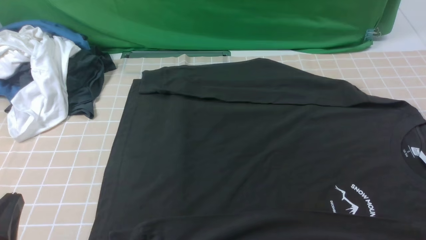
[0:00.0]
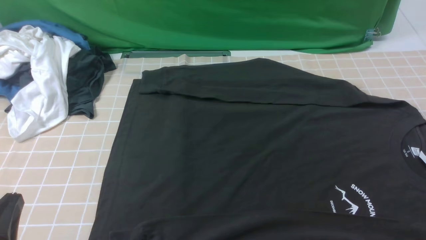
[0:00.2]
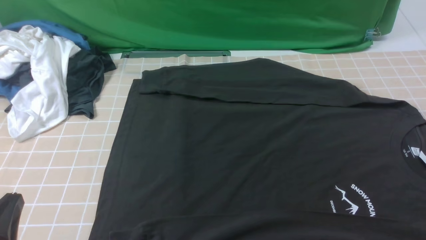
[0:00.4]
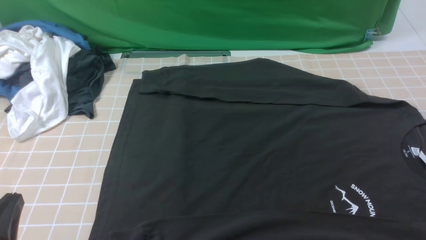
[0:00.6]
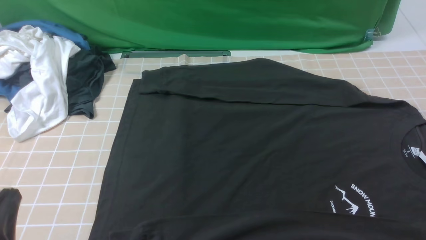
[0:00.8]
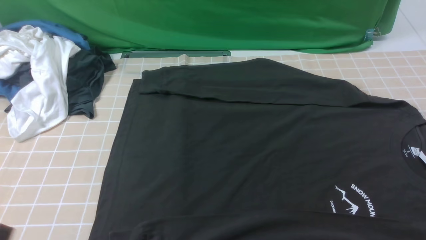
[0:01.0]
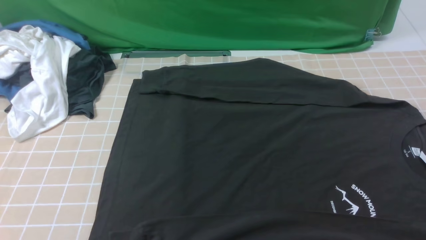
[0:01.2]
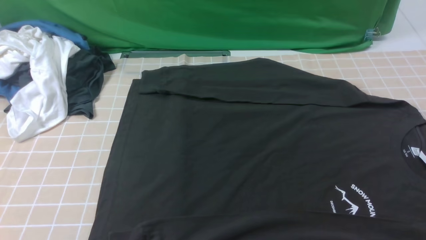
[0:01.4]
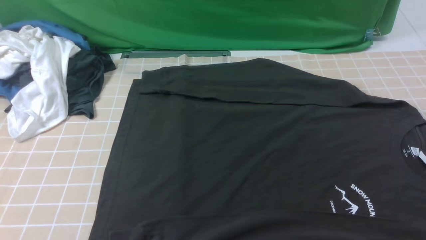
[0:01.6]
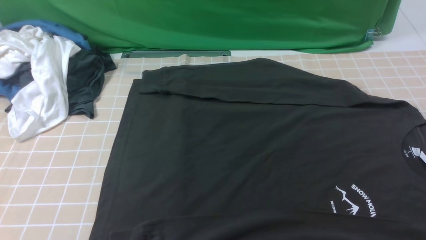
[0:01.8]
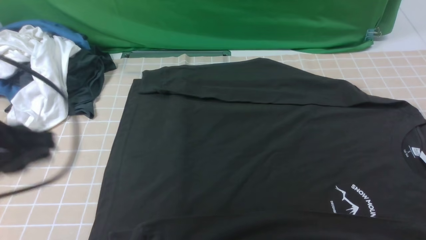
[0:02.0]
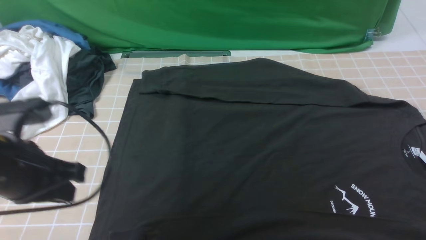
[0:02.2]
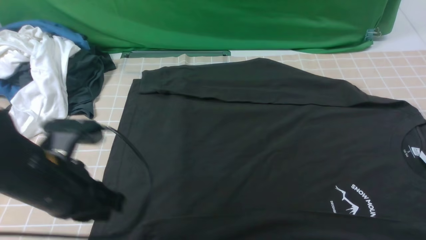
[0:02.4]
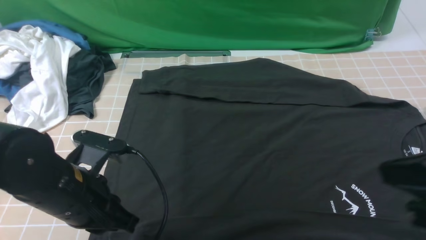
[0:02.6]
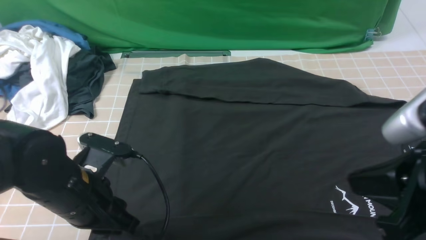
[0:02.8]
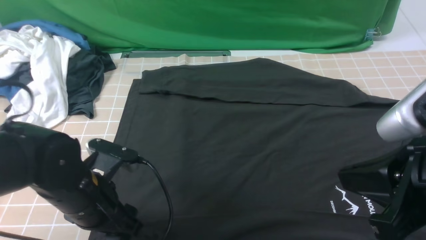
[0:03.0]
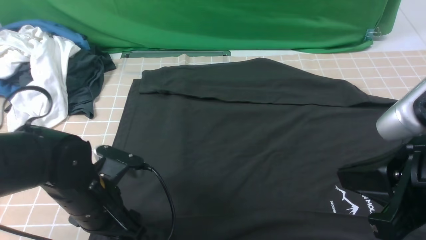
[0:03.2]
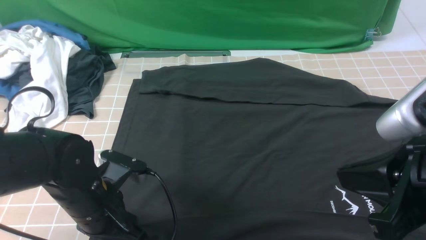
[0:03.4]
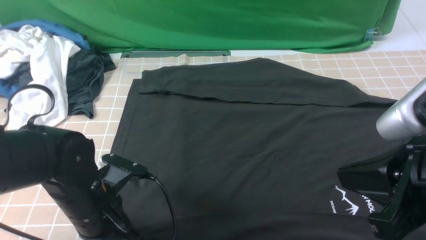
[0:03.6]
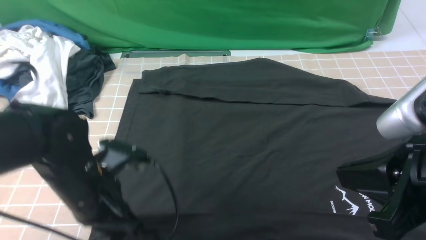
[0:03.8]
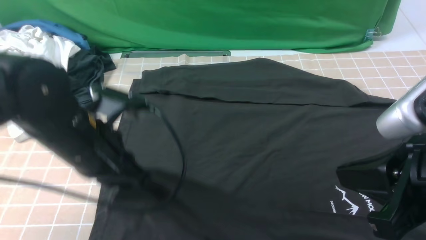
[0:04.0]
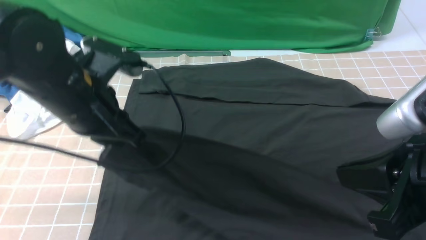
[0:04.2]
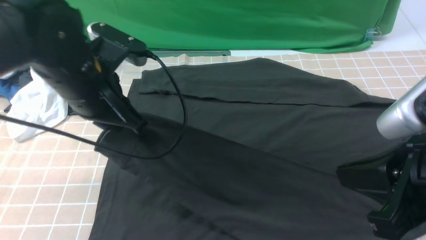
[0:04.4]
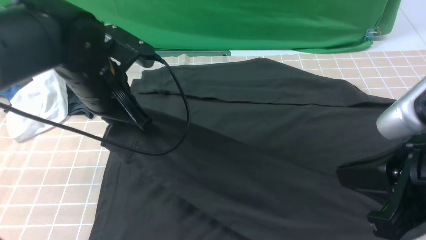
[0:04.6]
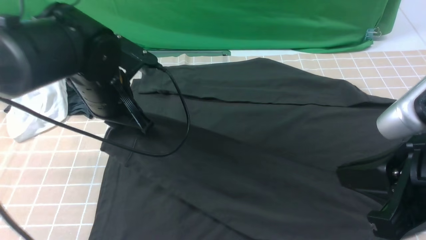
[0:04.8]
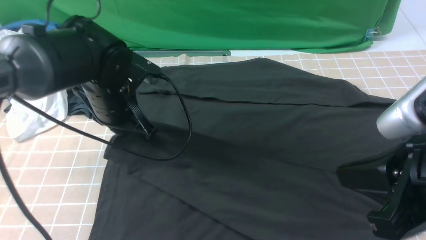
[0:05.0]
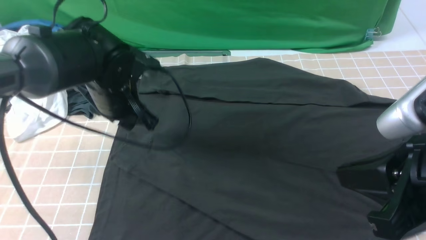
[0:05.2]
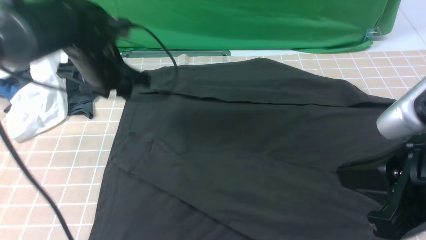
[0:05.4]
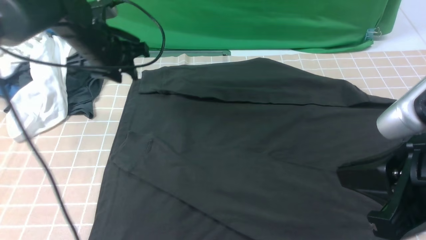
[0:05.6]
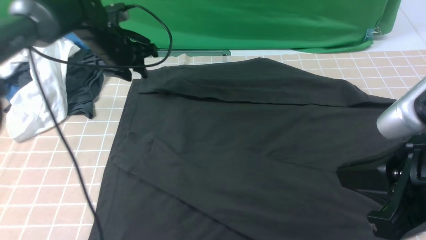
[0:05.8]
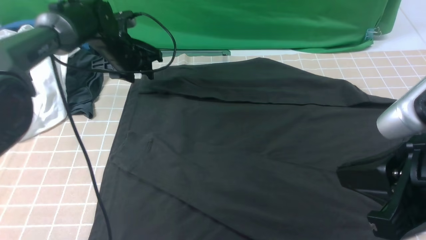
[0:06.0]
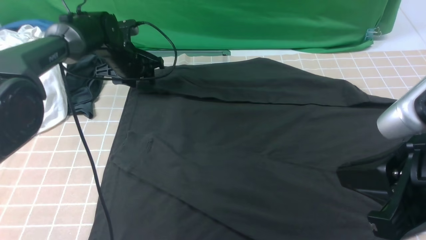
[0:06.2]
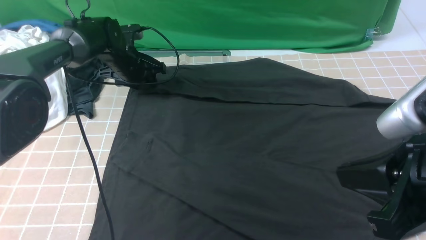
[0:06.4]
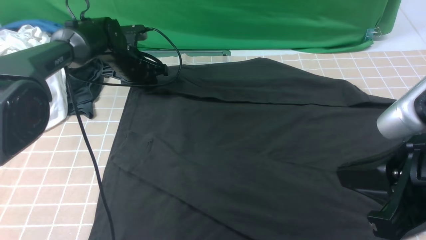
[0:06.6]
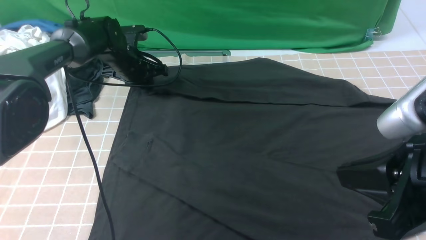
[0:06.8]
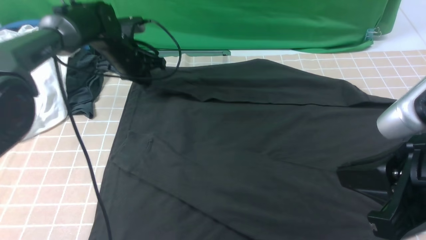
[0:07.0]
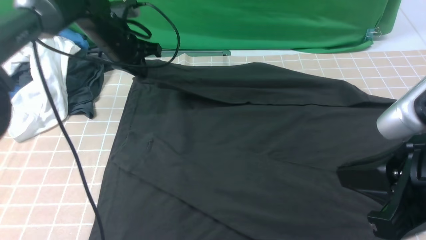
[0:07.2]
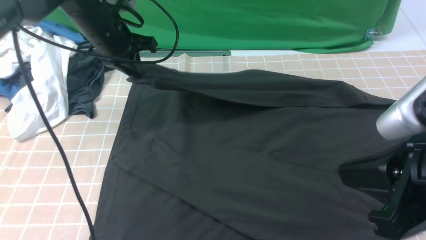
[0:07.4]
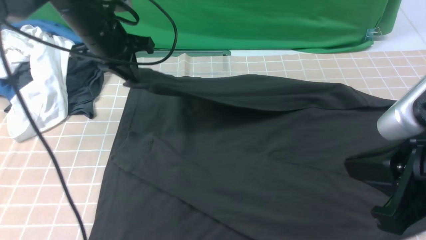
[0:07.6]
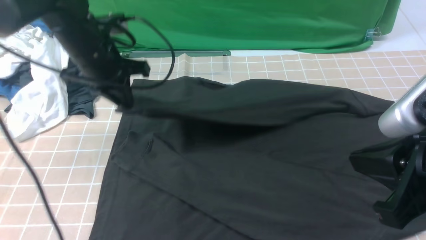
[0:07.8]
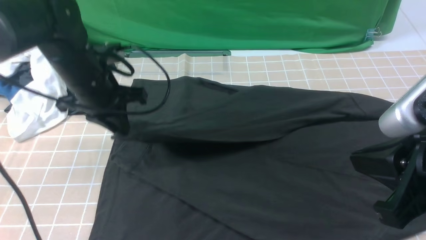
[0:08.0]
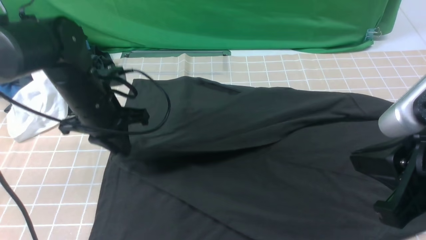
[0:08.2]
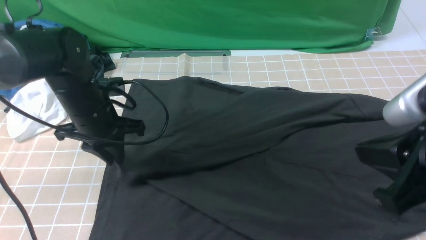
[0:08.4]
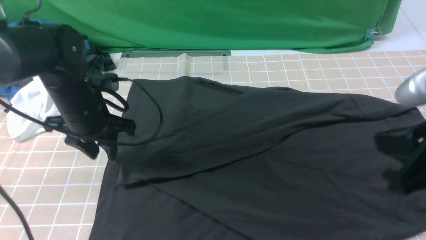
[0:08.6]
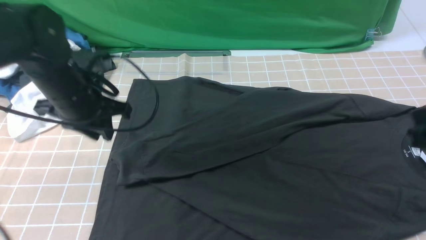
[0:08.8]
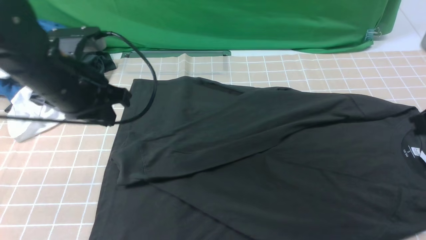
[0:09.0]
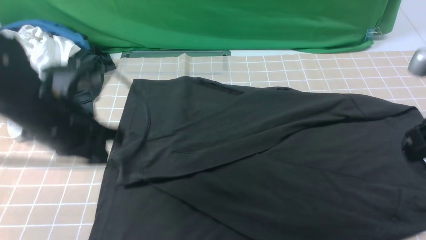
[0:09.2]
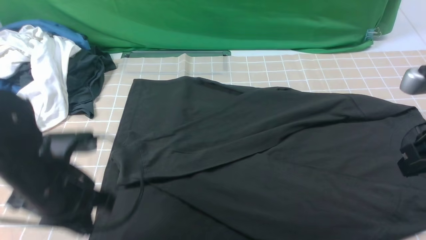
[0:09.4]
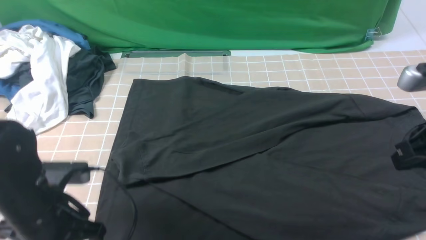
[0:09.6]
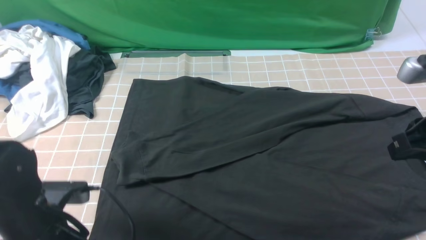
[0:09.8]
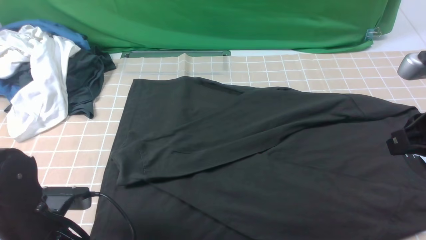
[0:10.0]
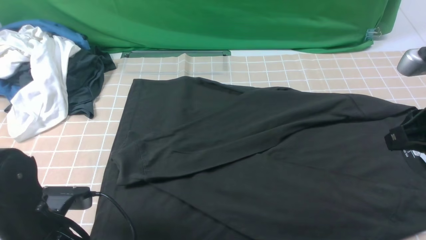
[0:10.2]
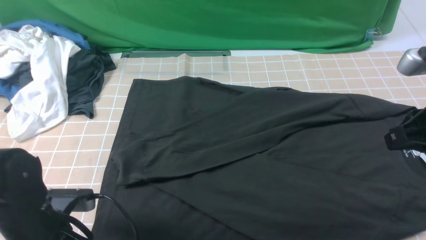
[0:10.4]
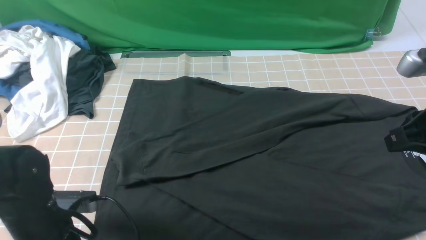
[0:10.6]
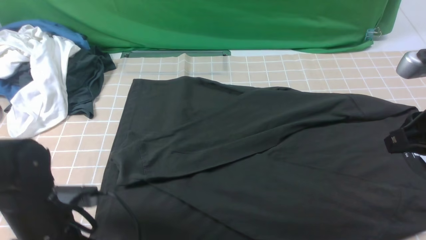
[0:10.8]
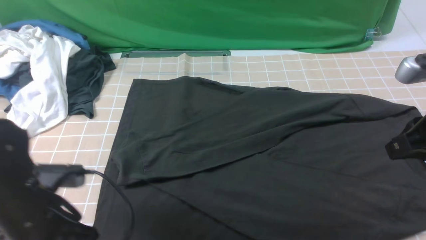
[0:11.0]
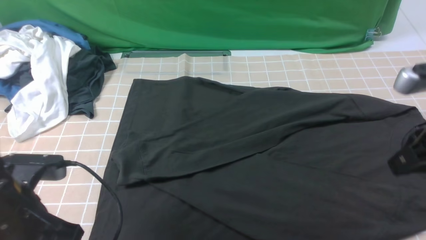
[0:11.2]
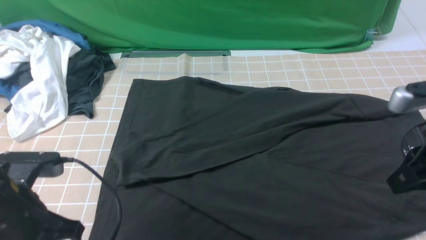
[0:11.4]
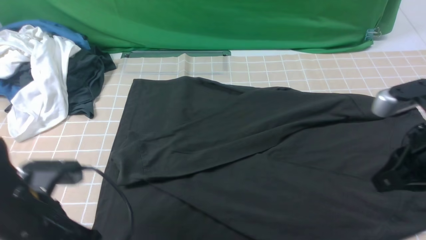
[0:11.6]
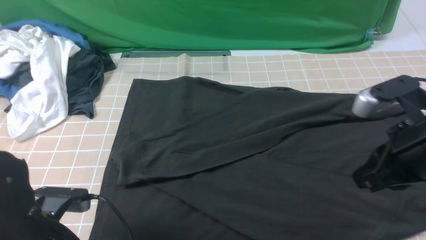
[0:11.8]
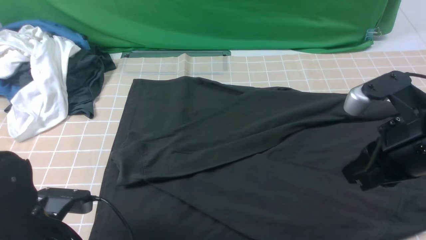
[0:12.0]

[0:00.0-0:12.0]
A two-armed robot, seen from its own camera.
Step, 0:00.0 to 0:03.8: use the left arm to clamp the cuff closest to it.
Step, 0:04.0 to 0:05.2: use the left arm to drag and place the cuff at the centered position on the left edge of the fabric.
Step, 0:05.4 to 0:07.0: use the left arm to clamp the cuff farthest from it.
Step, 0:07.2 to 0:08.8: use the left arm to drag and drop the cuff onto the cuff closest to the left arm.
0:00.0 to 0:01.6: The left gripper goes about 15 cm upward.
0:01.6 to 0:03.0: The left gripper moves downward, forward and to the right, some 20 cm, and opens; the right gripper is displaced to the left, upward and forward by roughly 15 cm, and closes.
0:03.0 to 0:04.4: The left gripper heads upward and forward, covering approximately 15 cm, and closes up.
0:04.4 to 0:06.0: The left gripper heads forward and downward, covering about 25 cm, and opens.
0:06.0 to 0:07.6: The left gripper heads upward and backward, covering about 10 cm, and closes.
0:07.6 to 0:09.0: The right gripper moves forward and to the right, about 10 cm. Meanwhile the left gripper travels backward by approximately 10 cm, and opens, then closes once more.
0:09.0 to 0:10.4: The left gripper heads backward and downward, covering approximately 15 cm, and opens and closes again.
0:10.4 to 0:12.0: The left gripper opens up; the right gripper heads to the left, covering roughly 5 cm.

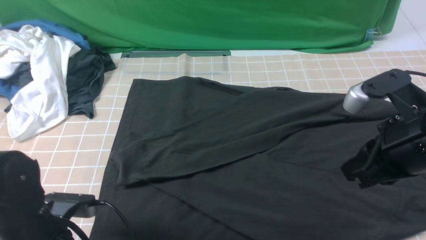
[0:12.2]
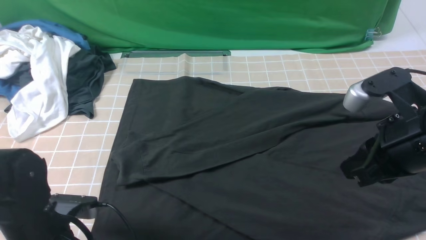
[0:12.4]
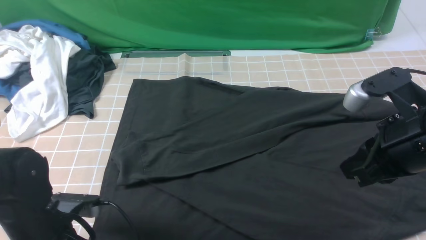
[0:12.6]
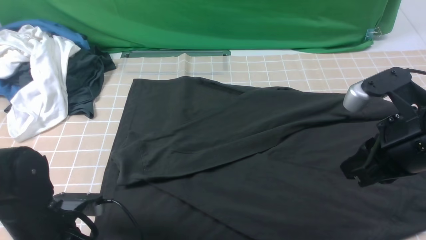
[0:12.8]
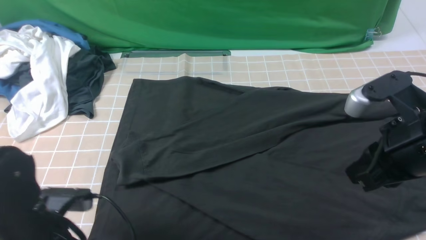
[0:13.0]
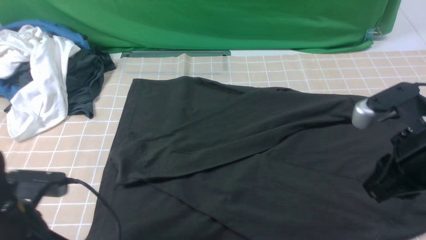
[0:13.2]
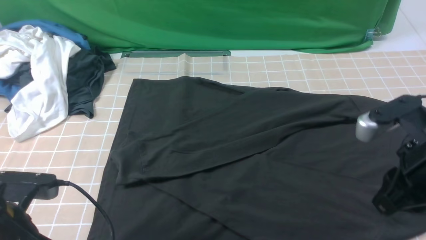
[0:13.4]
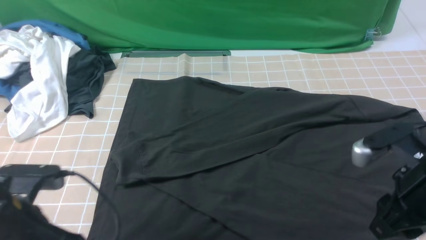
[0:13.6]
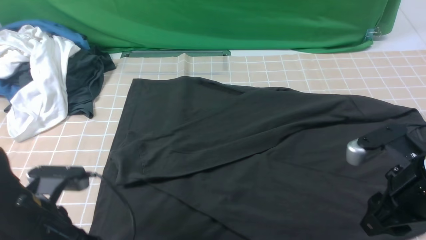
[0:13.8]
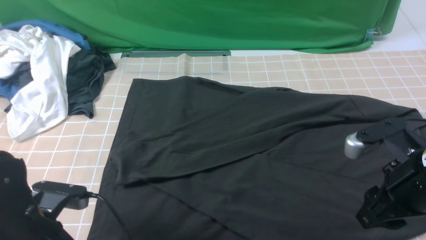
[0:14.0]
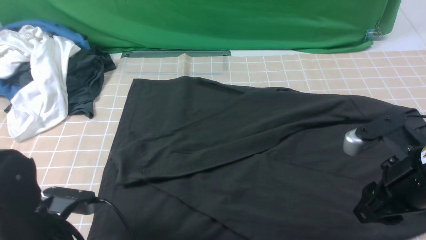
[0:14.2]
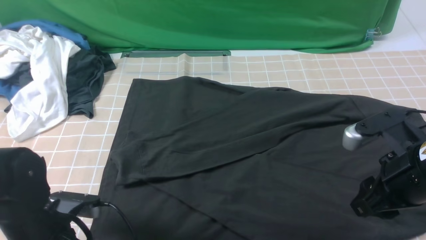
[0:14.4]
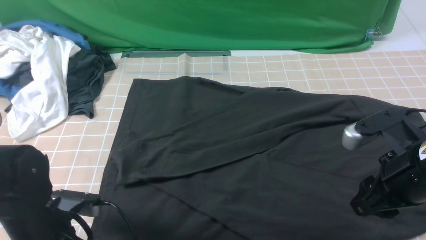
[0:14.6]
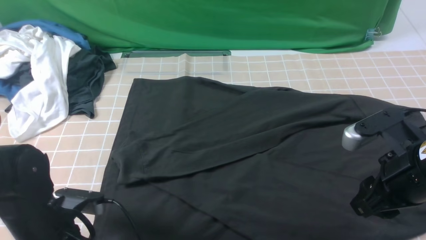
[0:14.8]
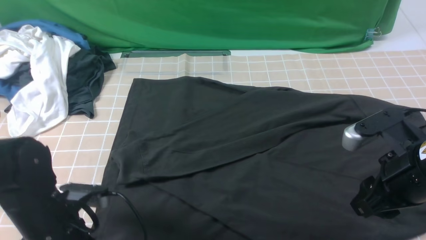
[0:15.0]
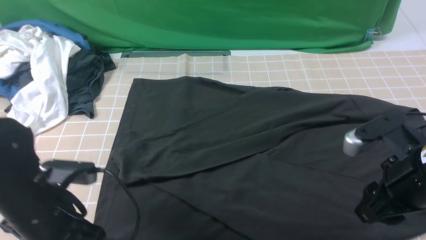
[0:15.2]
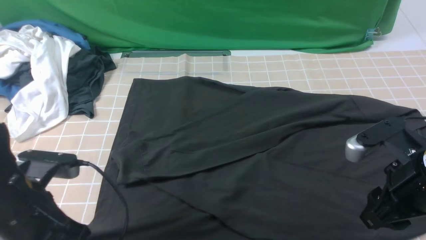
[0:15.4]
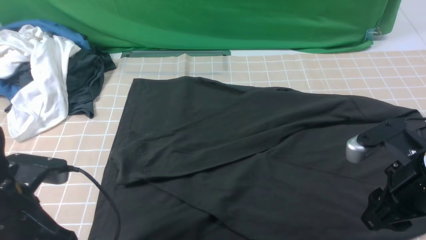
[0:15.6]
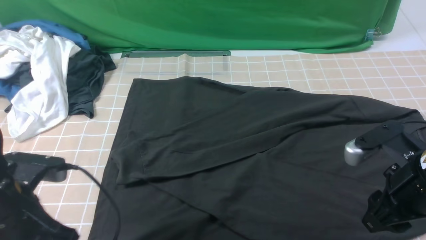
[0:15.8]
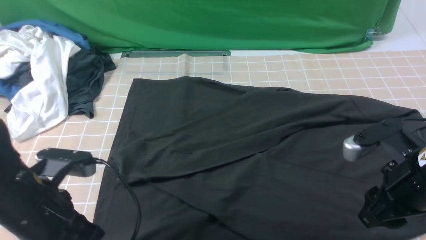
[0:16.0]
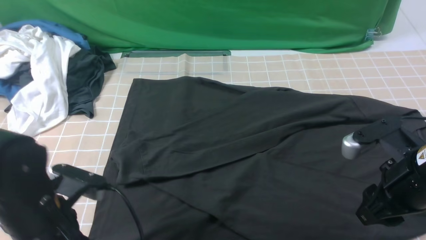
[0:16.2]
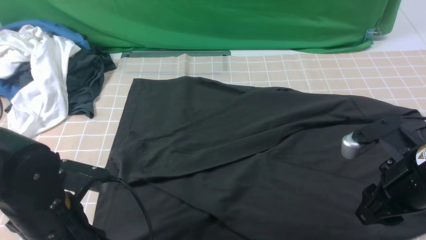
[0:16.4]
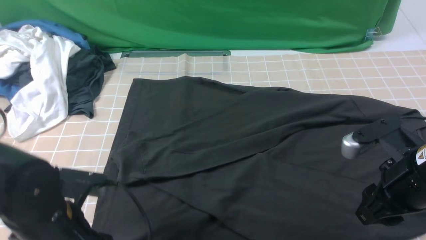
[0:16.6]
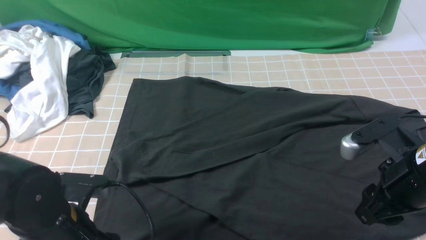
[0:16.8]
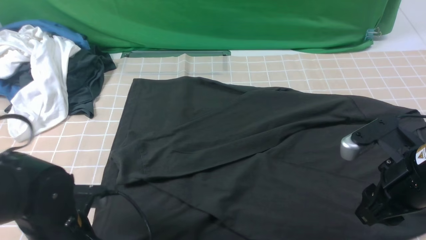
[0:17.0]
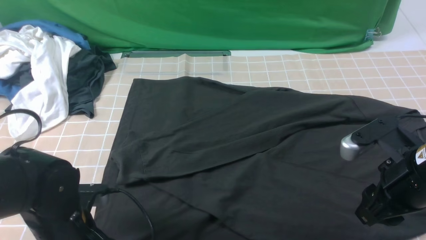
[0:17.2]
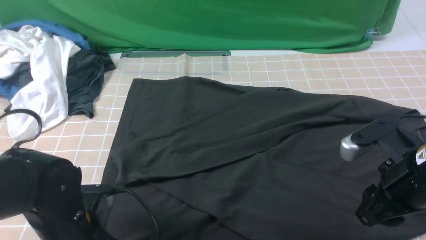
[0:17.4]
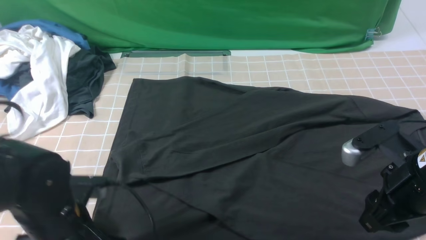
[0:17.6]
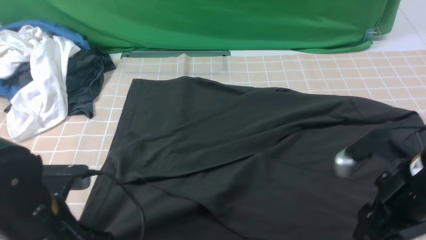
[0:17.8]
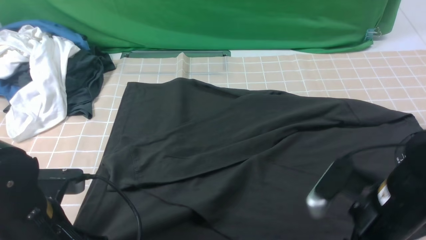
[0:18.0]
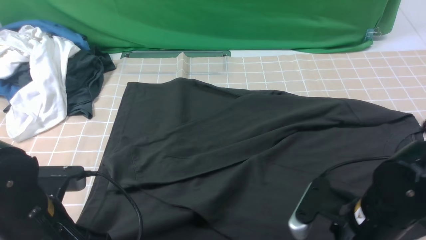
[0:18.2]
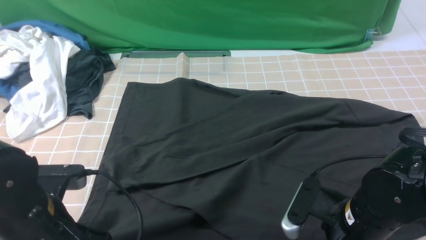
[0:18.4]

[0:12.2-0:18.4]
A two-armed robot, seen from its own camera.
0:12.2 to 0:13.8: The left gripper closes up. Meanwhile the right gripper heads downward, covering about 5 cm, and opens its fingers.
0:13.8 to 0:15.4: The left gripper opens, then closes again.
0:15.4 to 0:16.8: The left gripper ends up about 5 cm from where it was, and opens up.
0:16.8 to 0:18.4: The right gripper heads downward and to the left, covering approximately 10 cm. The left gripper ends up approximately 5 cm from where it was, and closes up.
